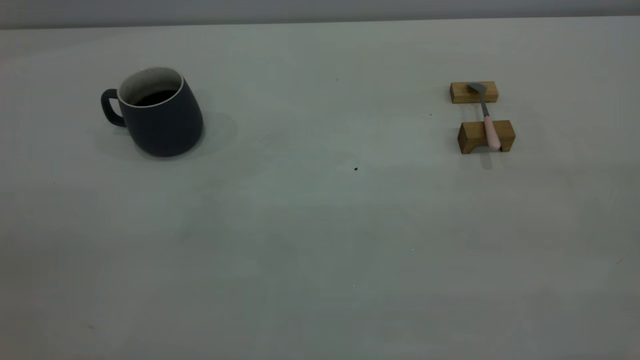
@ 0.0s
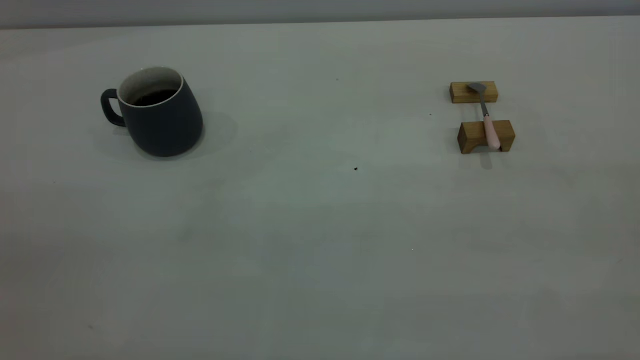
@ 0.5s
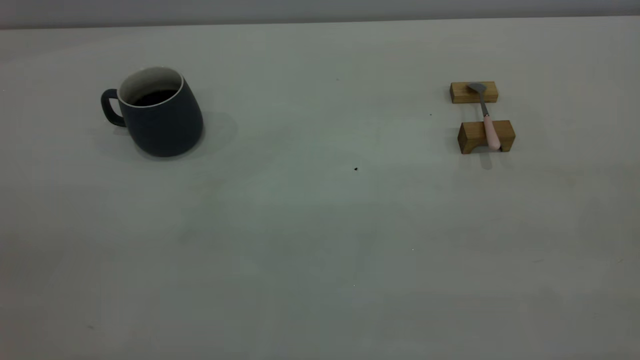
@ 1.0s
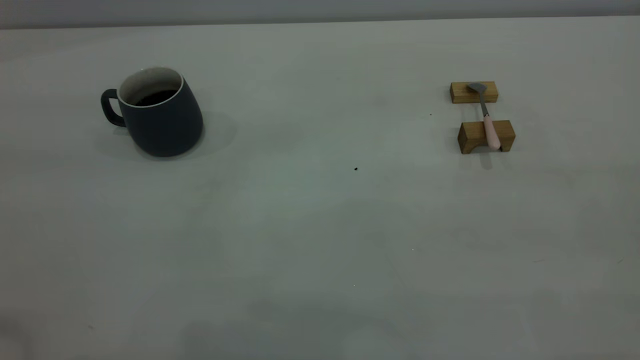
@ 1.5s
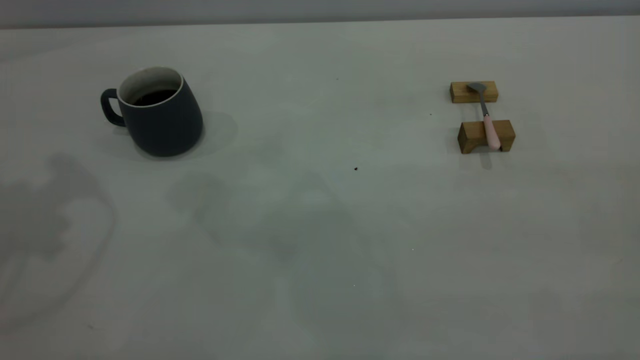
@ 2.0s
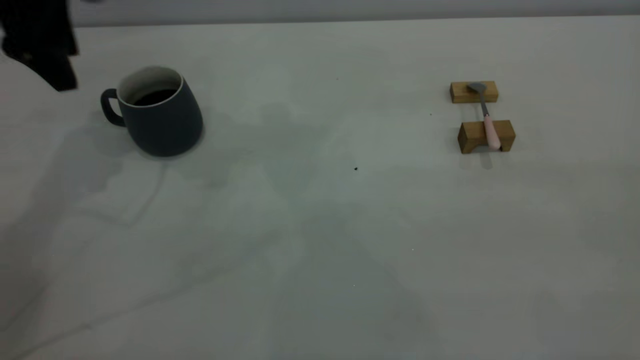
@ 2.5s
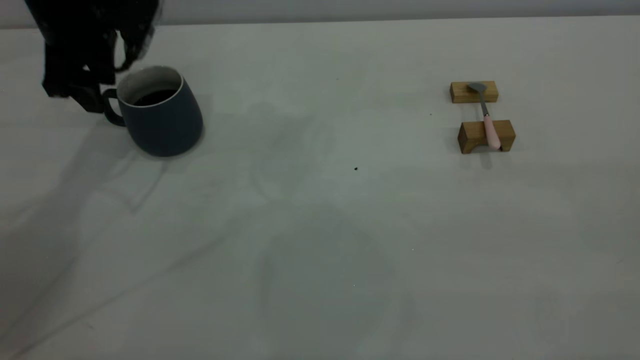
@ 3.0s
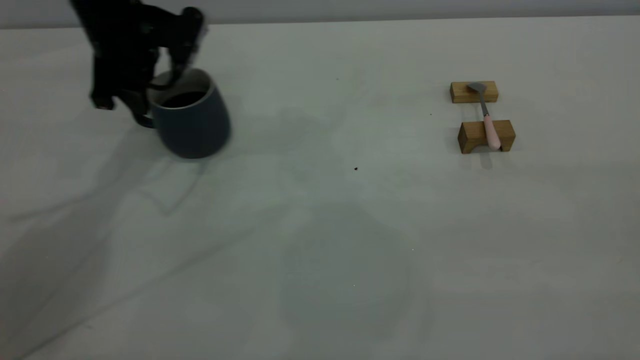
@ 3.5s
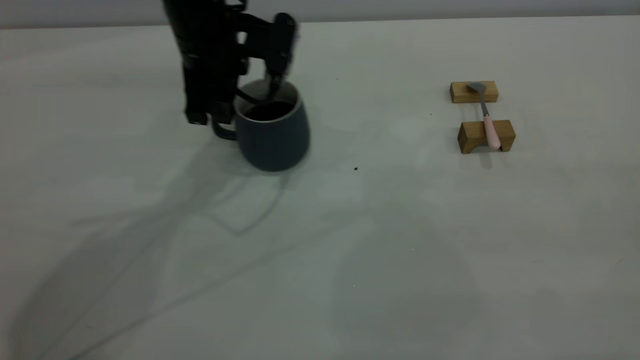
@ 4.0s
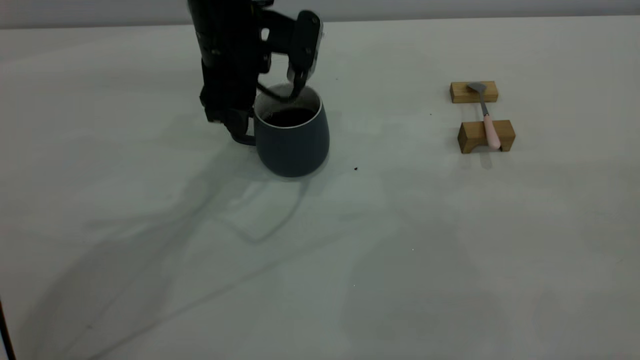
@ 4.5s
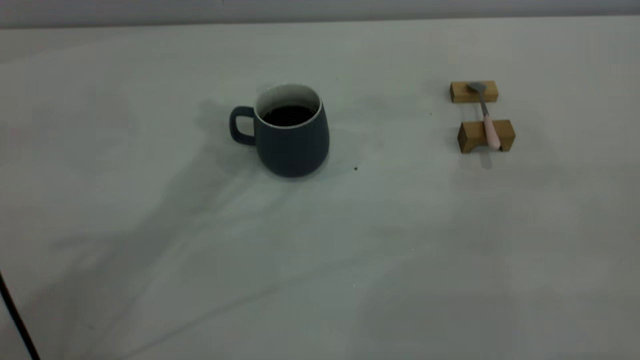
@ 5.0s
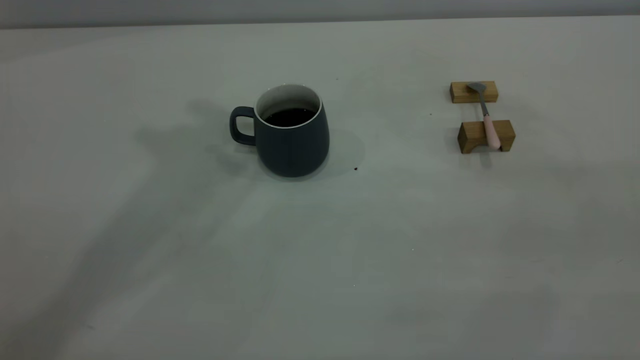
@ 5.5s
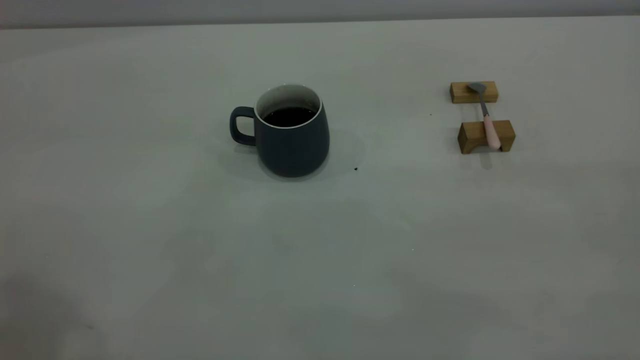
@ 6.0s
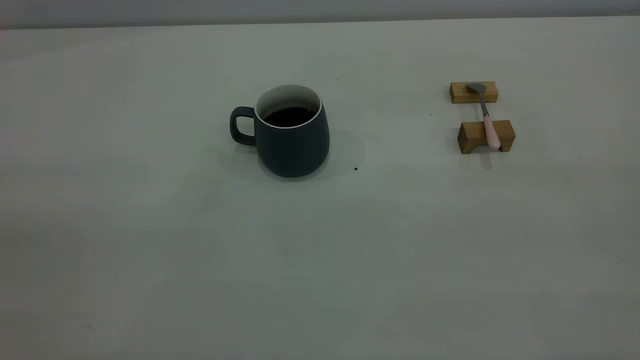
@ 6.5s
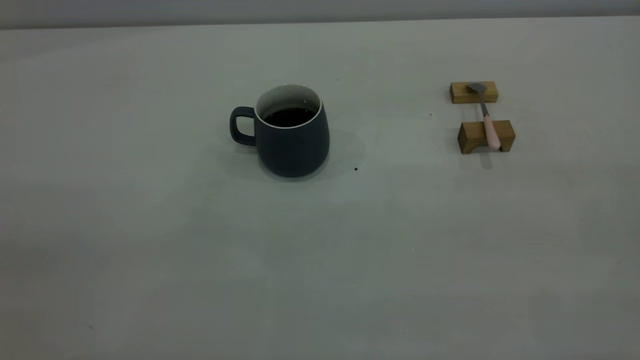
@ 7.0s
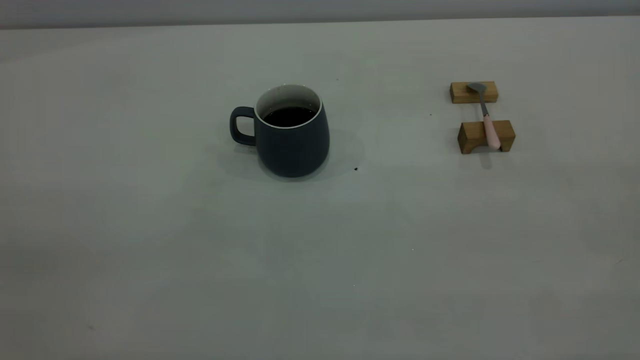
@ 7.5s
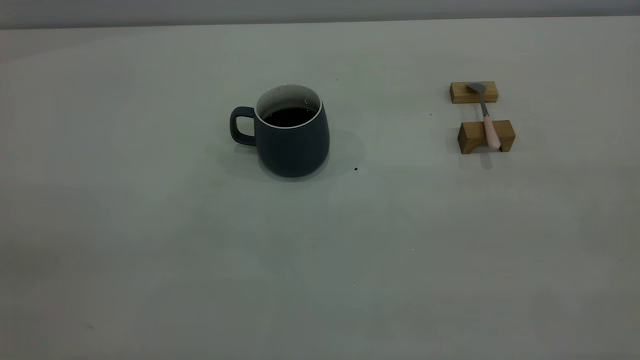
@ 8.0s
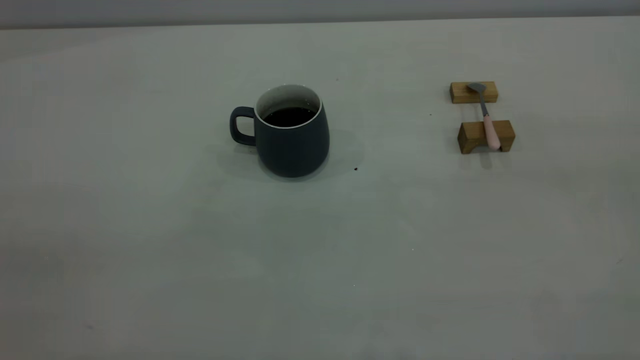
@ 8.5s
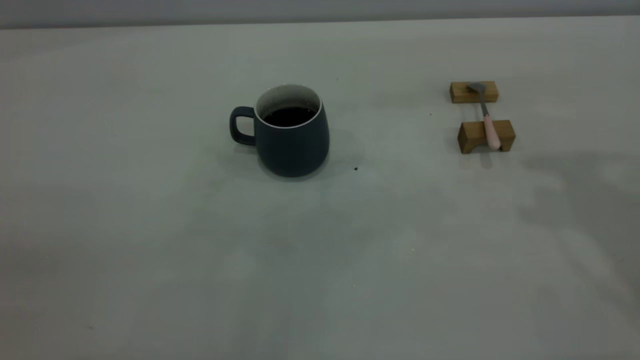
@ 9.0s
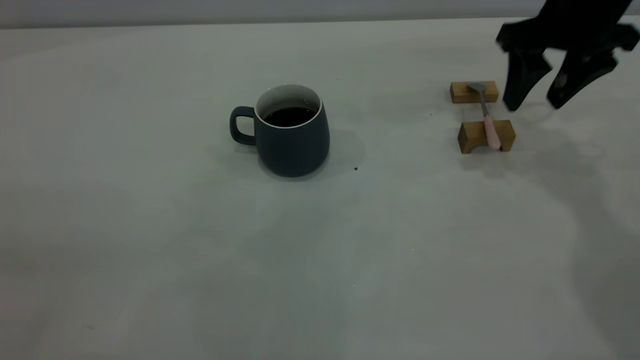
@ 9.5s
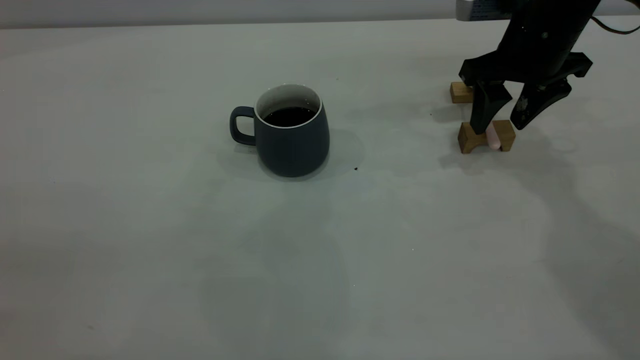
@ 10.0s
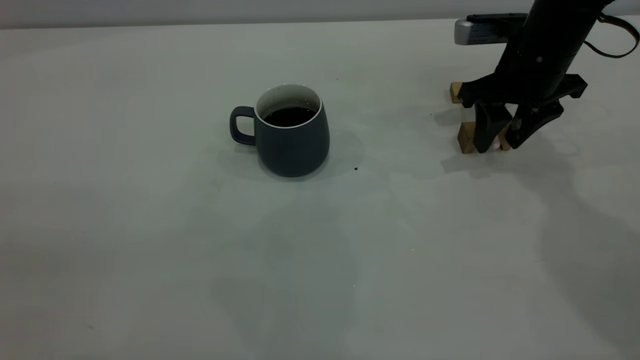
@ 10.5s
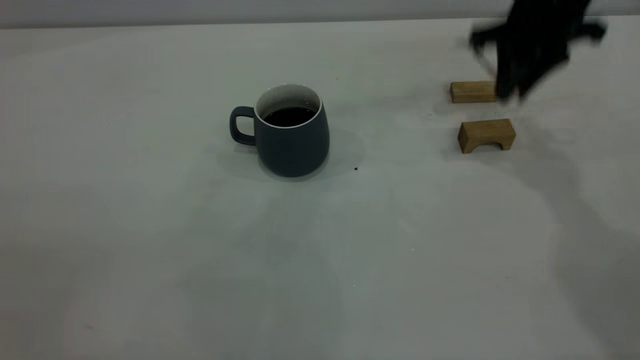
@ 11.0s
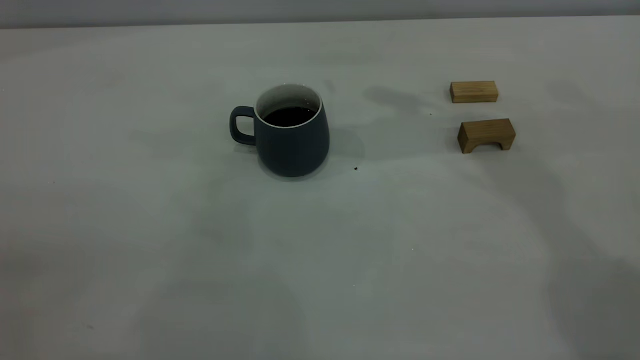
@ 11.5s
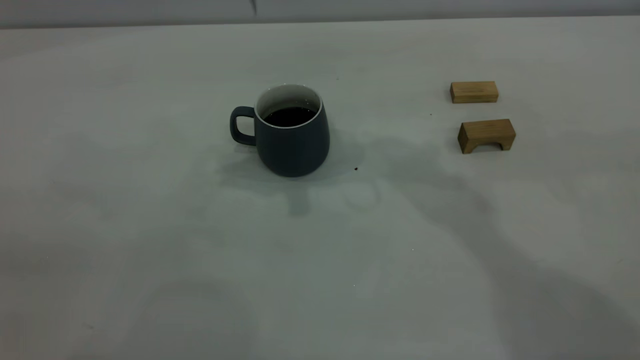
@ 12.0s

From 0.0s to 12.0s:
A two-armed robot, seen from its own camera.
Step, from 0.0s to 4.5s: Move the cup with coffee to the center of view.
Step, from 5.0s to 10.5s: Pick up the spoon.
From 2.0s to 4.0s: The left gripper goes roughly 30 cm to the right, downward and forward, and closes up.
From 4.0s to 6.0s: The left gripper shifts roughly 50 cm upward, backward and to the left, and opens and closes again.
From 8.0s to 10.0s: The right gripper goes roughly 50 cm forward and downward, and opens.
From 10.0s to 12.0s: The right gripper heads to the left and upward, covering some 25 cm, and closes.

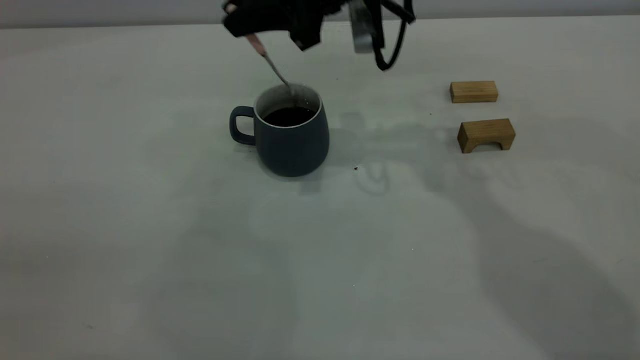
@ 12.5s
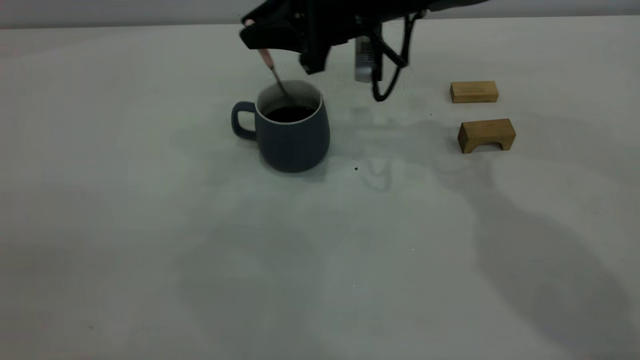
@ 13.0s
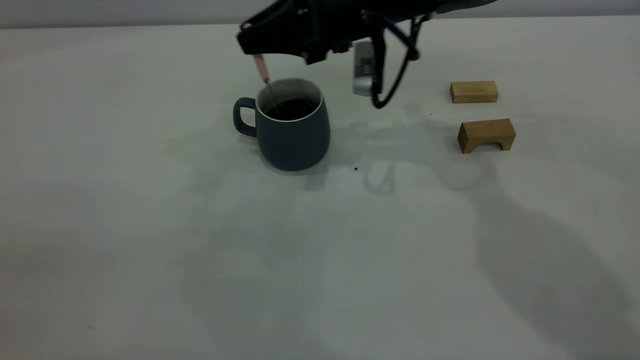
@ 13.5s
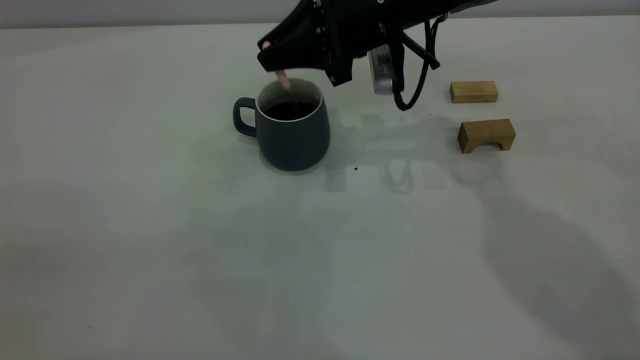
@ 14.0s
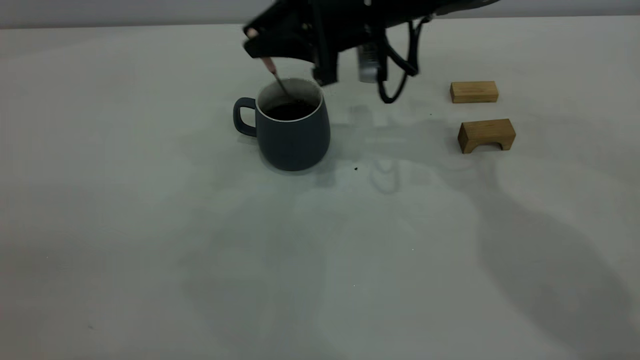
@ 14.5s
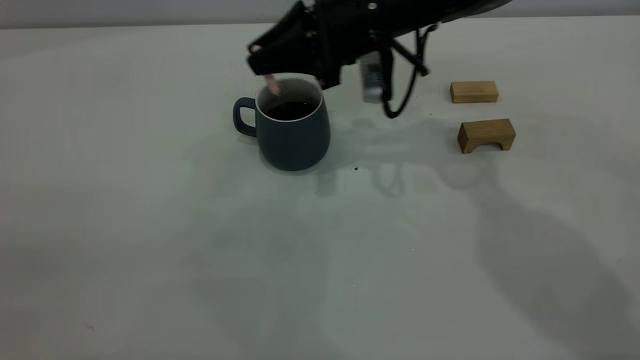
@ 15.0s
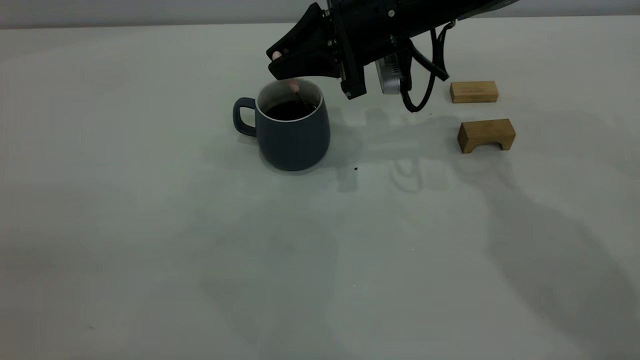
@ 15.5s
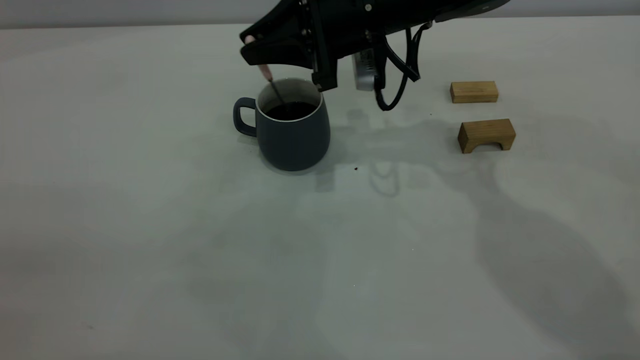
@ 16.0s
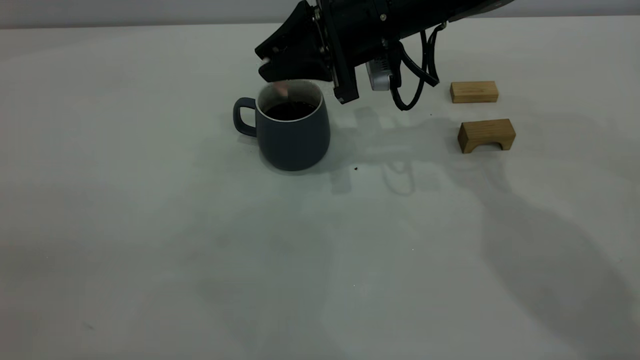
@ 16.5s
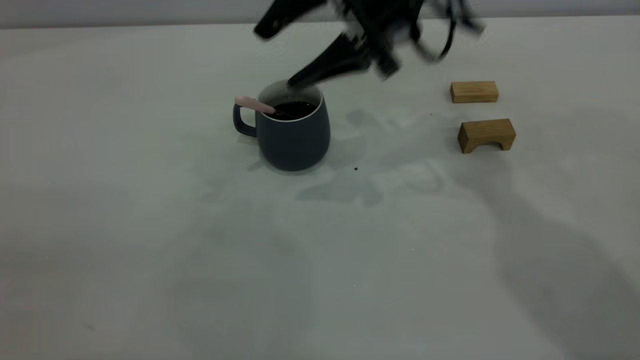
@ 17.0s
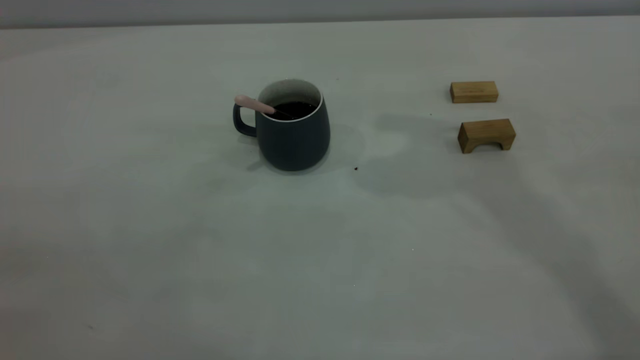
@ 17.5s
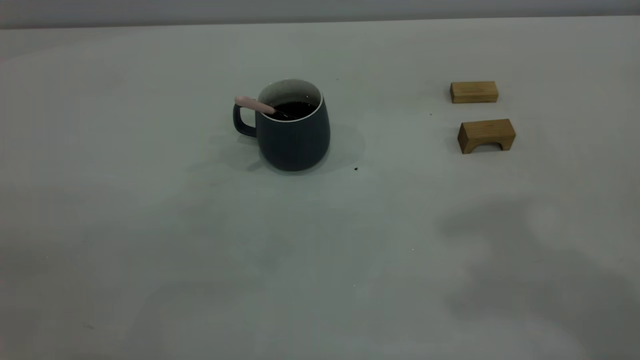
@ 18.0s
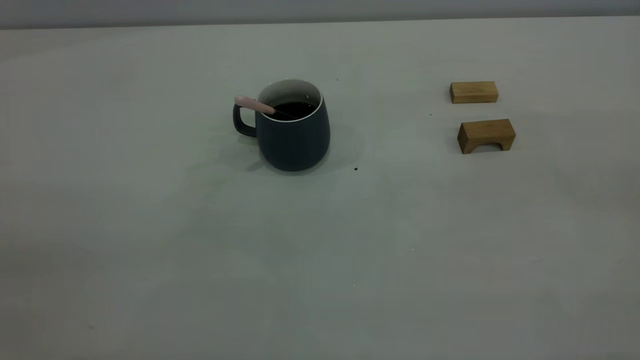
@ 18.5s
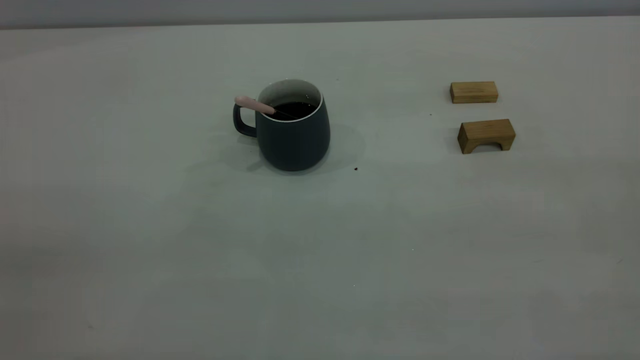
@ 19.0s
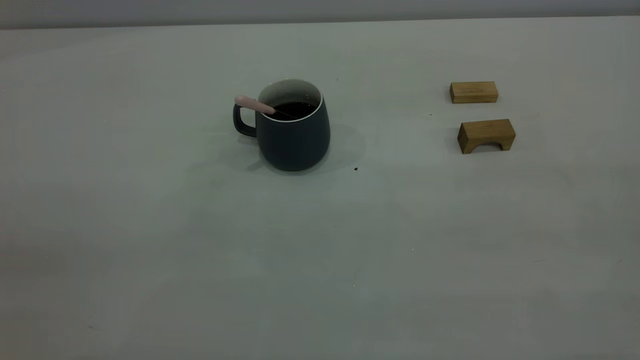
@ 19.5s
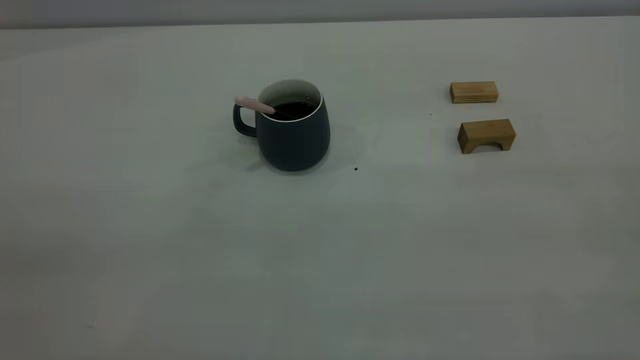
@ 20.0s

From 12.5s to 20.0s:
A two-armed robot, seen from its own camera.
Step, from 12.5s to 17.0s: Stir the coffee in the cup.
From 12.5s to 14.5s: The grippers stay close to where they were, moving slightly.
From 14.5s to 16.5s: The right gripper opens.
From 16.5s to 18.0s: The right gripper shifts approximately 40 cm upward, backward and to the right, and opens and closes again.
